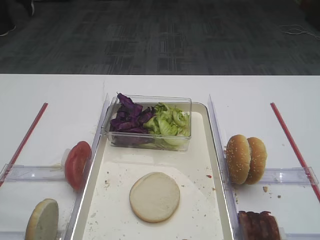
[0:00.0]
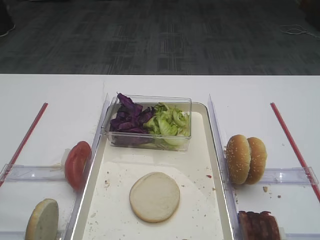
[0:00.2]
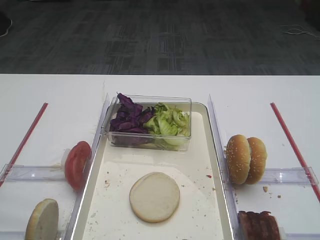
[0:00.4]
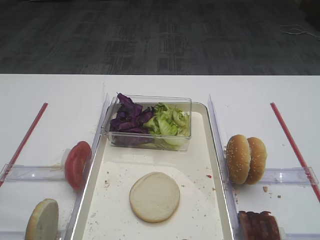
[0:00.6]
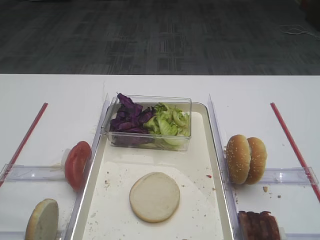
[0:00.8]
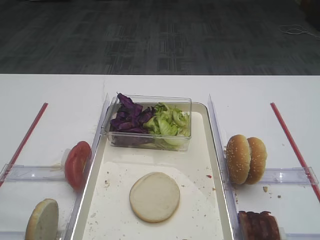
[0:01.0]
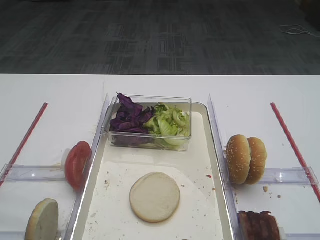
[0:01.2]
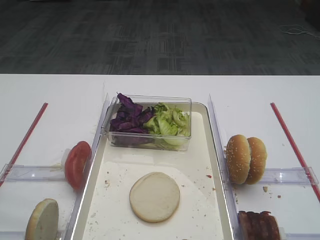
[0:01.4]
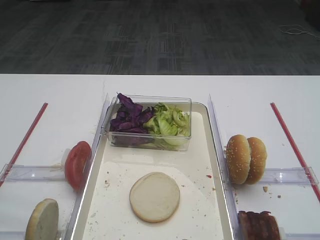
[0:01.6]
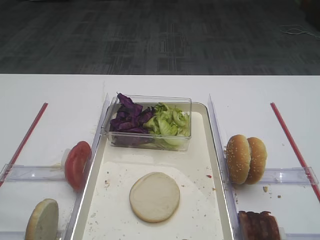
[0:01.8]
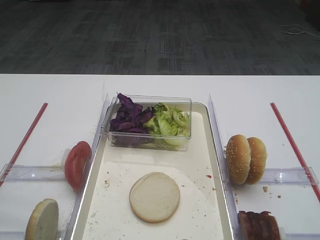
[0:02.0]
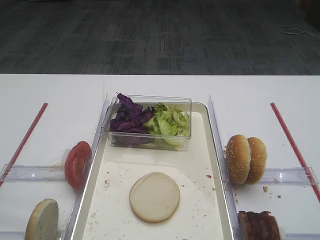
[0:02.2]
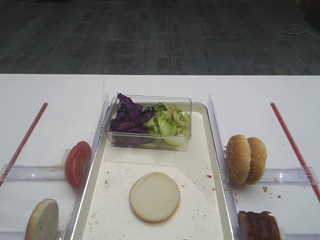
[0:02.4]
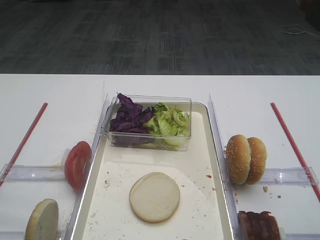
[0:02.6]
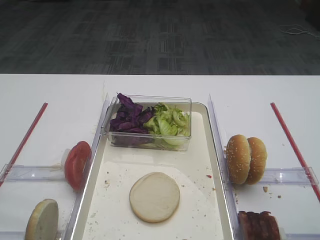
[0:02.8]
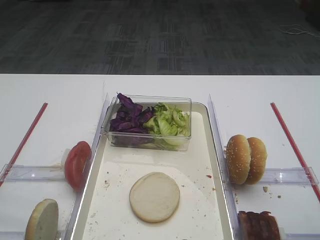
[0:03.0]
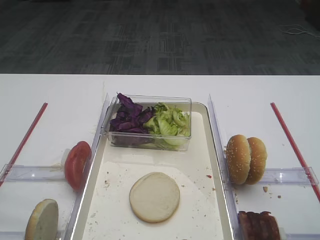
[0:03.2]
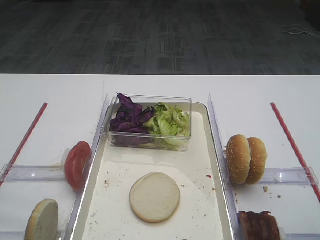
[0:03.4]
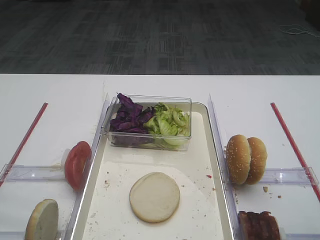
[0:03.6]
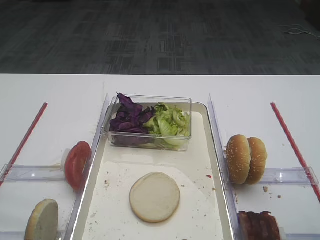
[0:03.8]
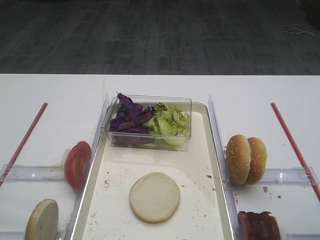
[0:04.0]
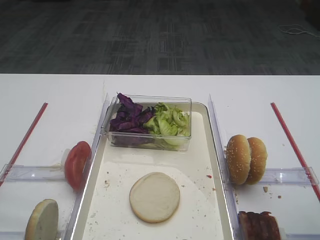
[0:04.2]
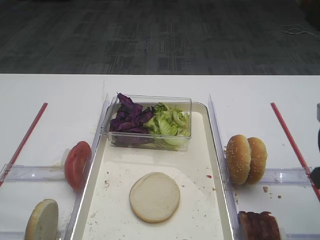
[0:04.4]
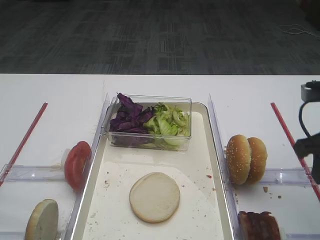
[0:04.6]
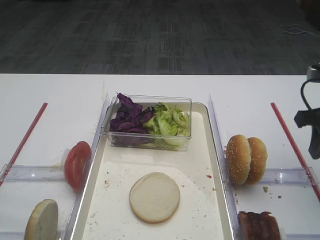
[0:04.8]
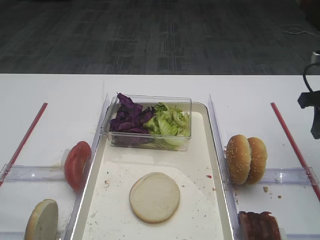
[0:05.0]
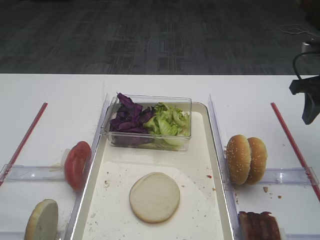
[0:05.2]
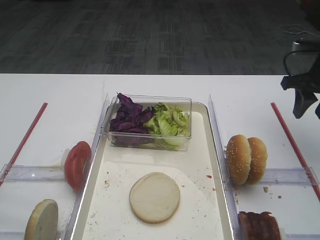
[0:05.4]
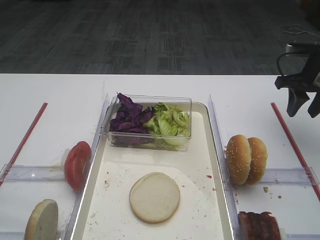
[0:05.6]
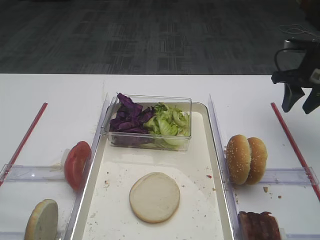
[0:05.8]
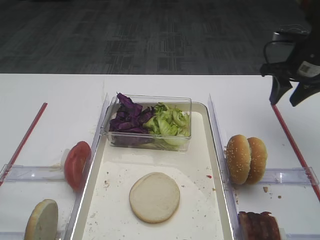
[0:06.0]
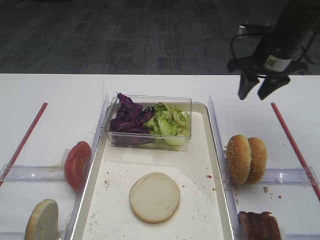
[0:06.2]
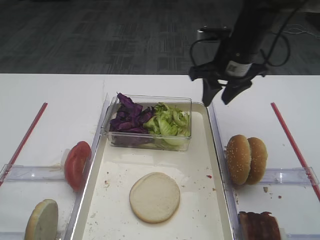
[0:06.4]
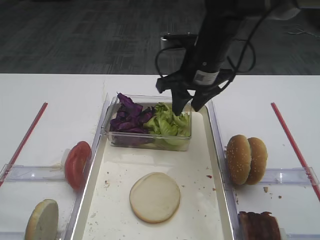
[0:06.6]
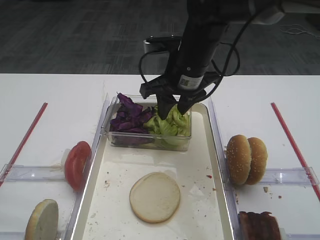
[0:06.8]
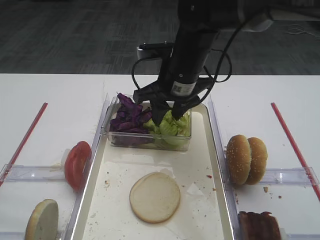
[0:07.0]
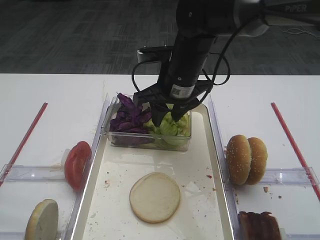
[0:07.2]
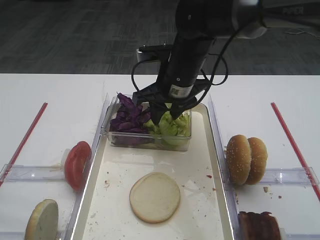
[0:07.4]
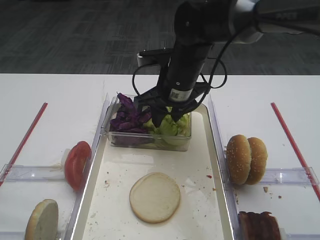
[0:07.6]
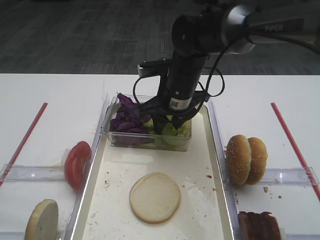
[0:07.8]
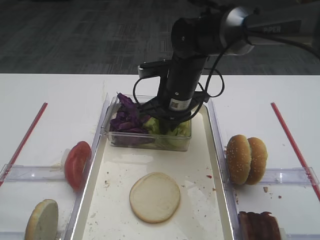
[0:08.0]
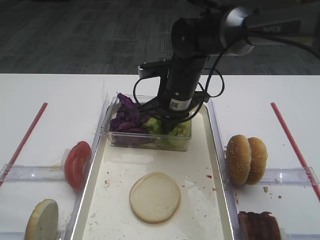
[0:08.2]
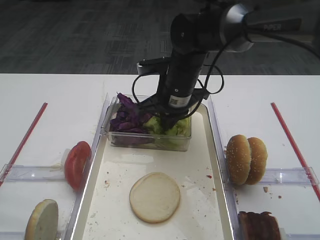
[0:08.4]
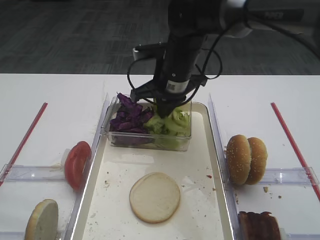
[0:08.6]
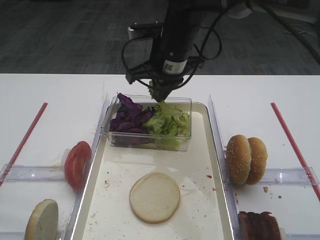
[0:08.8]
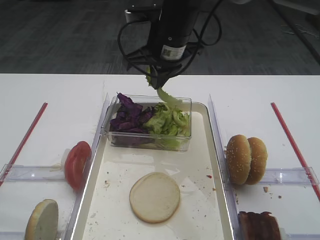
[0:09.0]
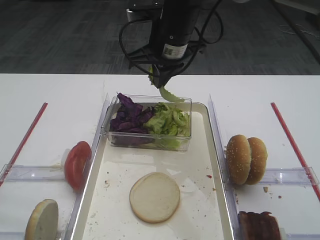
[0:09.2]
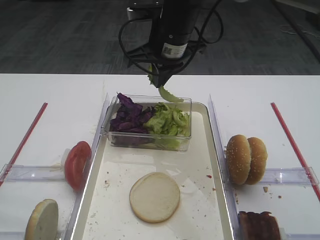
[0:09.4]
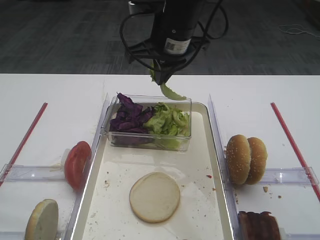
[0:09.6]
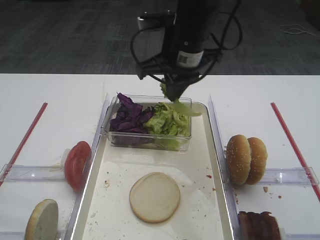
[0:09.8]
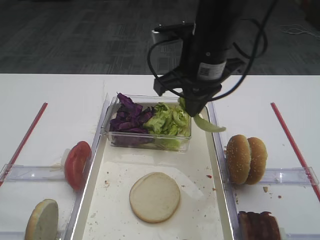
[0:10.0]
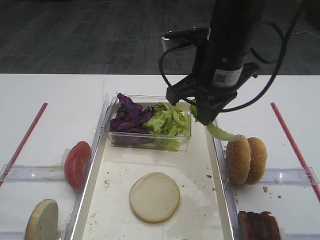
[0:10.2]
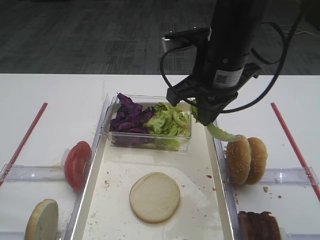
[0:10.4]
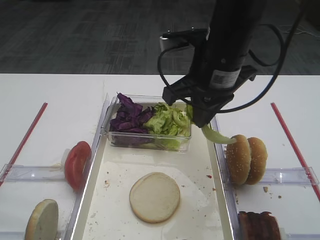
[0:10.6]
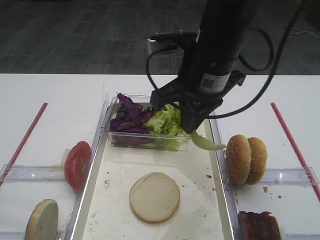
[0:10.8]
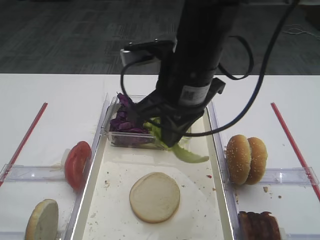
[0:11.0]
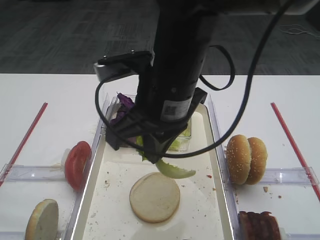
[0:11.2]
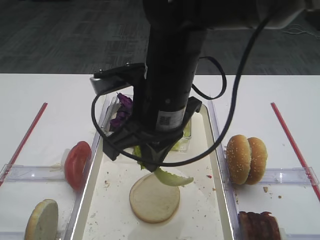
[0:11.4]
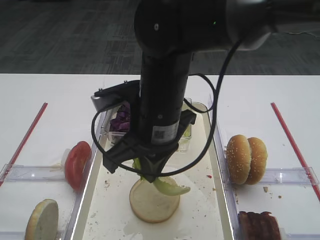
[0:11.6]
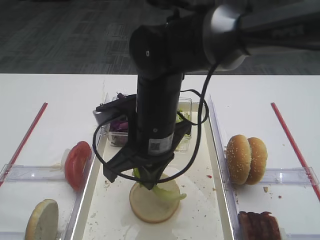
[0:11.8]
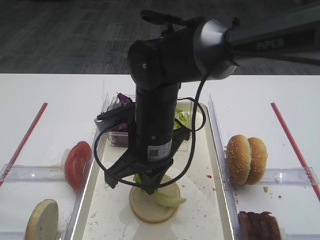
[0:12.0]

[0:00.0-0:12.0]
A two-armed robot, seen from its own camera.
Step, 0:00.0 to 0:08.8: Pick up the lettuce leaf with the right gripper.
0:04.4 to 0:06.0: The right gripper moves forward, roughly 25 cm.
0:06.0 to 0:07.6: The right gripper is displaced to the left by approximately 25 cm.
0:07.6 to 0:09.0: The right gripper goes roughly 10 cm upward, and closes.
0:09.0 to 0:10.4: The right gripper goes roughly 10 cm backward and to the right.
0:10.4 to 0:12.0: The right gripper is displaced to the left and downward by about 15 cm.

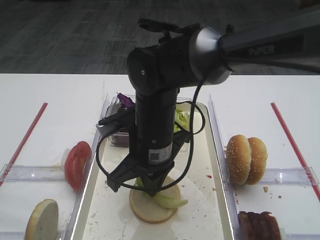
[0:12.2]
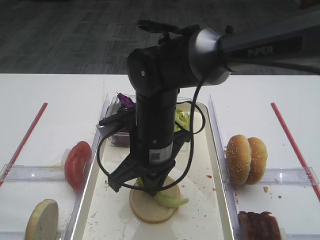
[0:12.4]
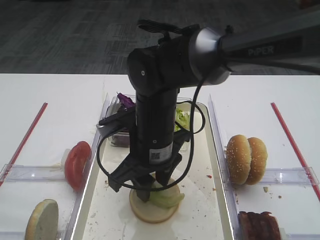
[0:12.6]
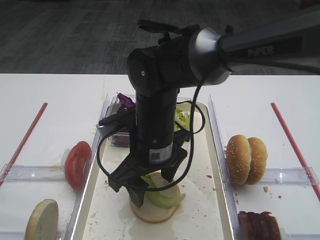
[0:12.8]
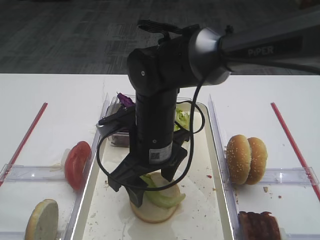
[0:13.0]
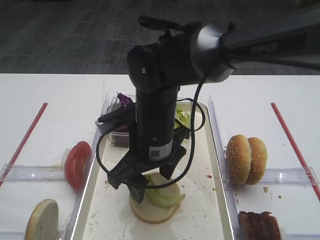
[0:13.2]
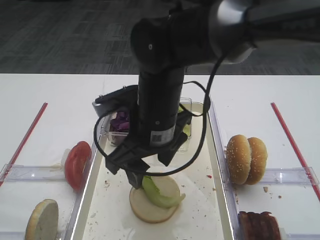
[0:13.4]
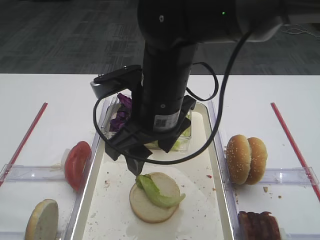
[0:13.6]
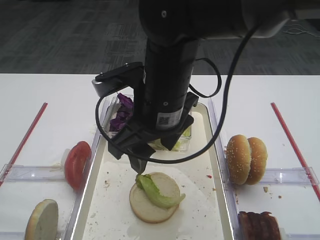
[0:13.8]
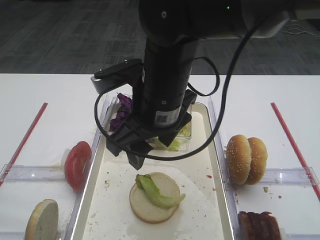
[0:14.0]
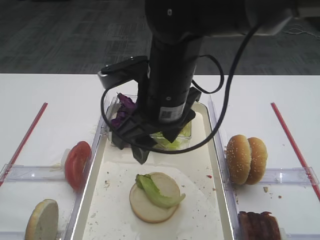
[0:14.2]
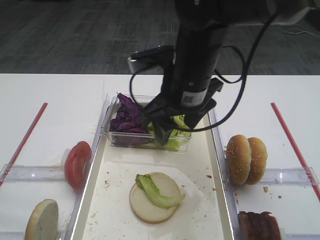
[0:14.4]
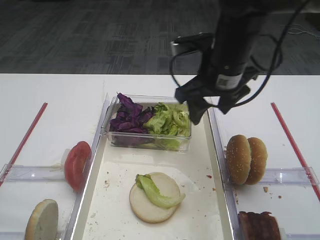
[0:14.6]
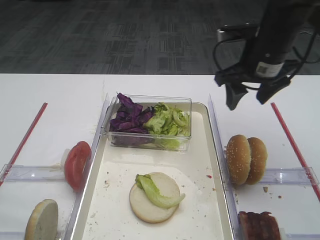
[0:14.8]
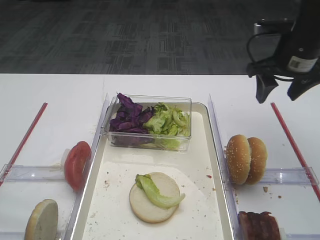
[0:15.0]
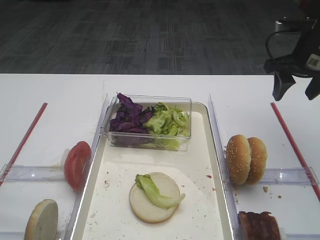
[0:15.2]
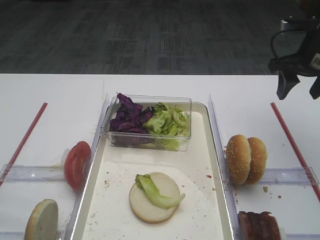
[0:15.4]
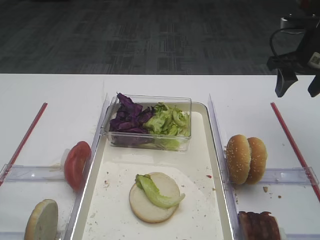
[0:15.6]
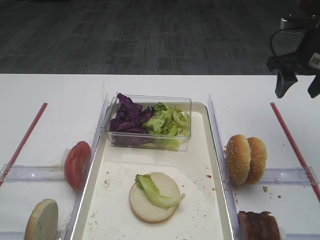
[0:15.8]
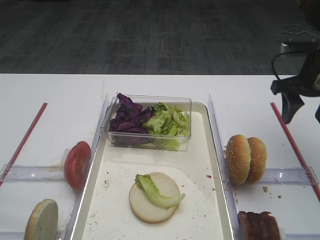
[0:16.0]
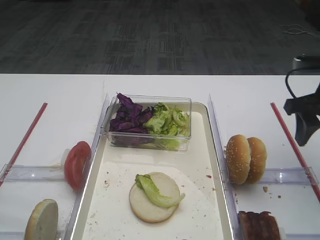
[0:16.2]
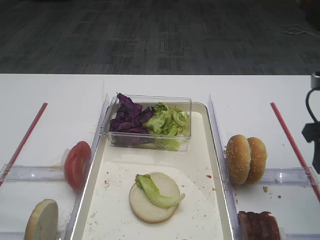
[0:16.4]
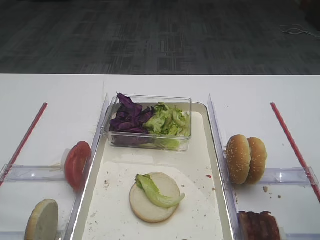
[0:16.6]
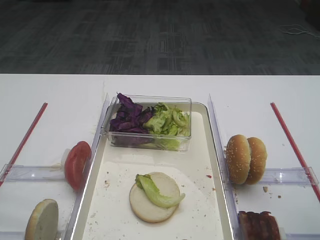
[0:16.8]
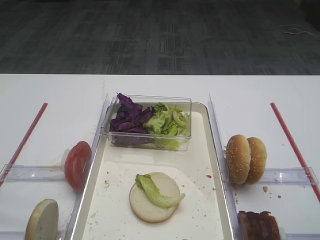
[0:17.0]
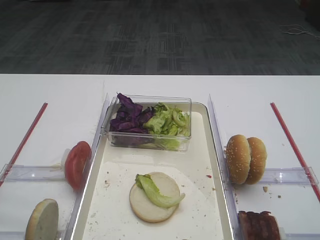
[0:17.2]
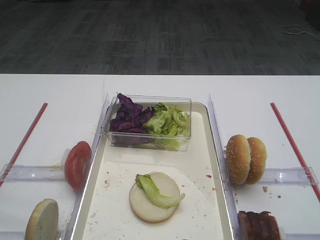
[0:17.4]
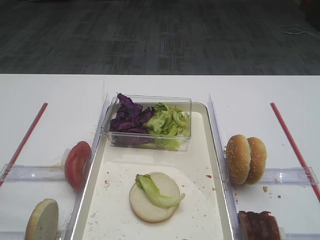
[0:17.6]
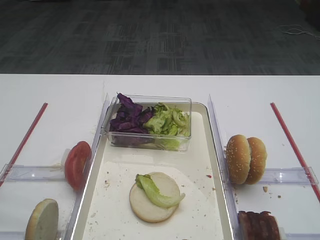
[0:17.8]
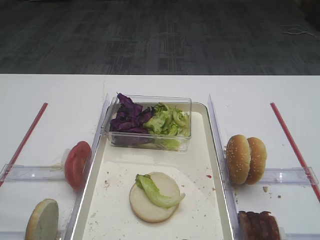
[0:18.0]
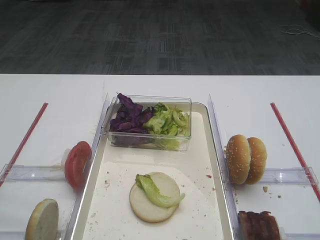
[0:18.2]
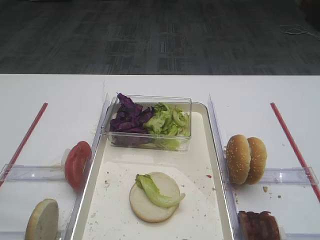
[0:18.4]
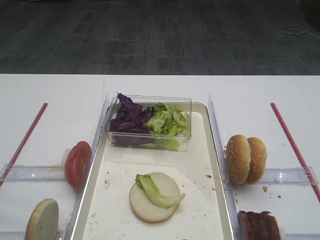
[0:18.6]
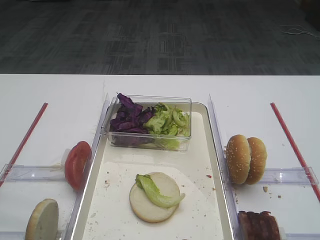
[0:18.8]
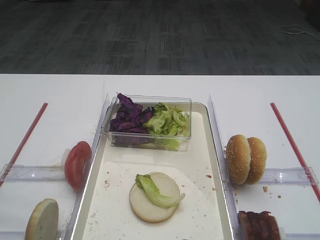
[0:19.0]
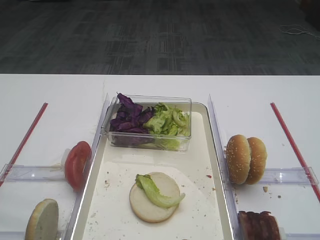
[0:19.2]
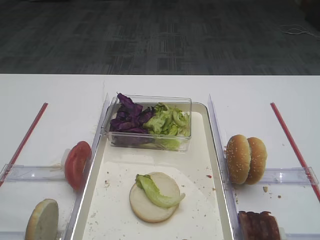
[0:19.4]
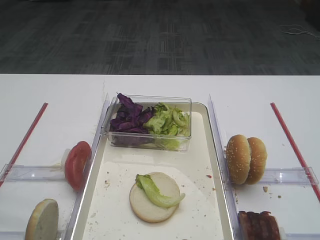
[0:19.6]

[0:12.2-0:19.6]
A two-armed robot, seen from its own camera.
0:12.2 to 0:13.6: The right gripper heads upward, covering roughly 5 cm, and opens up.
0:13.6 to 0:15.2: The right gripper goes about 30 cm to the right and forward.
0:15.2 to 0:16.6: The right gripper moves backward, about 20 cm.
0:16.6 to 0:18.2: The right gripper is displaced backward by approximately 20 cm.
0:18.2 to 0:19.6: Both grippers stay put.

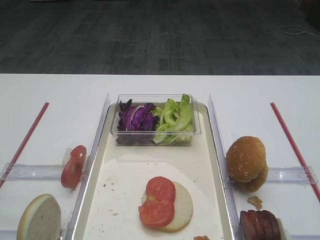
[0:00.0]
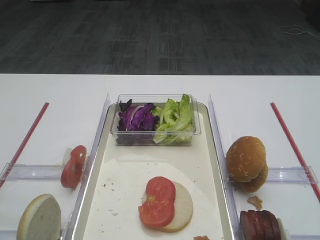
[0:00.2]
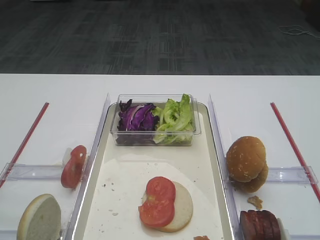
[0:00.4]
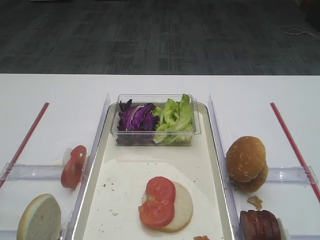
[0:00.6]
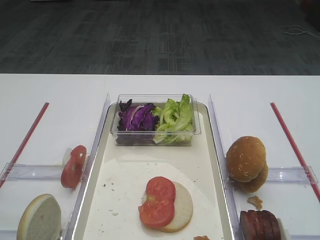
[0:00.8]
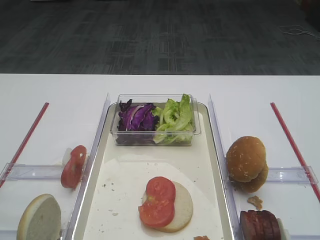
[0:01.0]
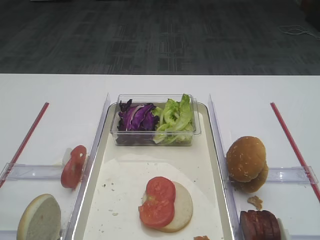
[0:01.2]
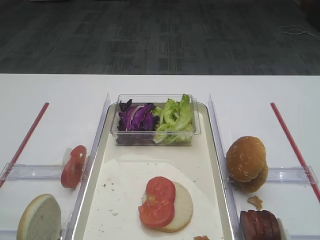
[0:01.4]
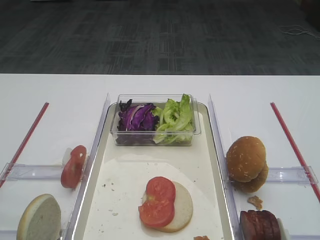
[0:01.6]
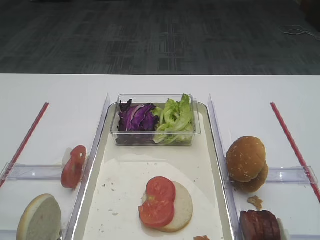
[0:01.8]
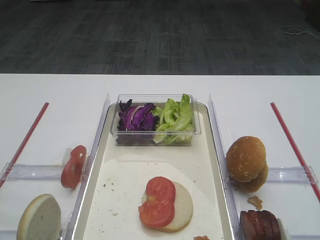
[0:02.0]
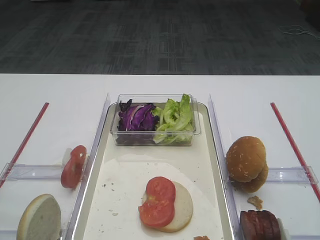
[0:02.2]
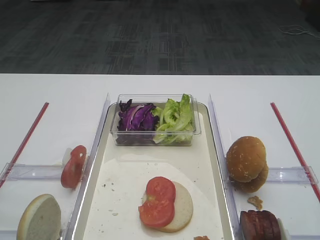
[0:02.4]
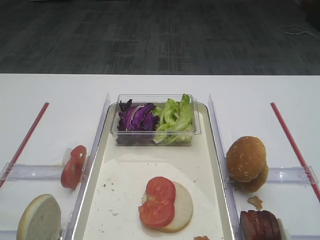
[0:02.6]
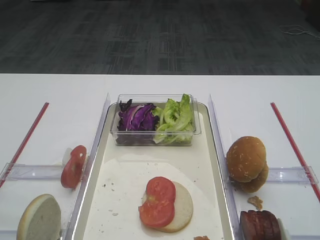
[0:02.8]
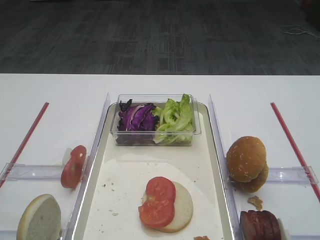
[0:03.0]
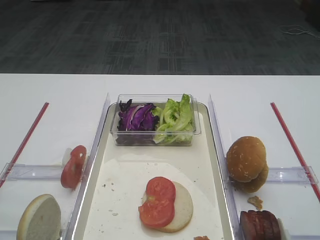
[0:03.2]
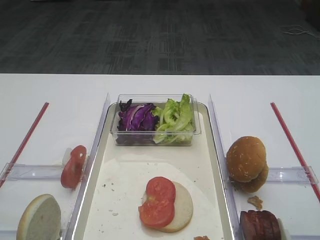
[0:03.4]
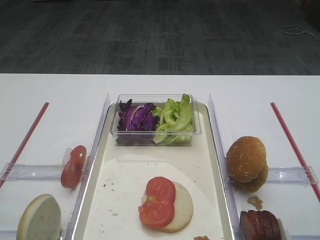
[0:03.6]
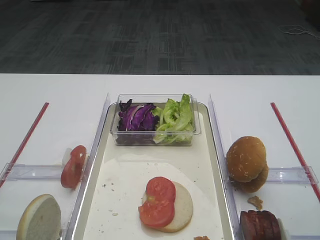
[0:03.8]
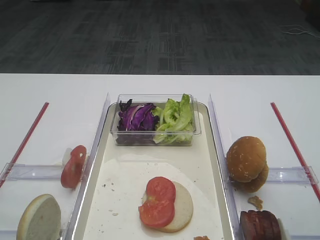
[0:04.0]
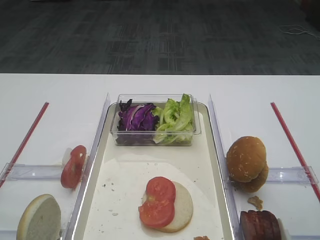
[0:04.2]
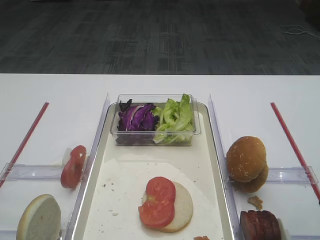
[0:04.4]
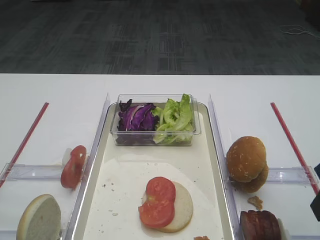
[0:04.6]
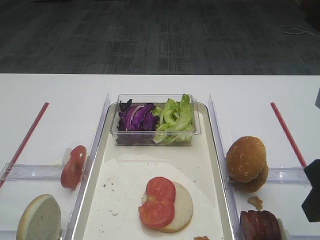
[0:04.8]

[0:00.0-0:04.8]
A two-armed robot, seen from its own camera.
0:03.2 to 0:04.8: The right gripper goes approximately 5 cm forward.
